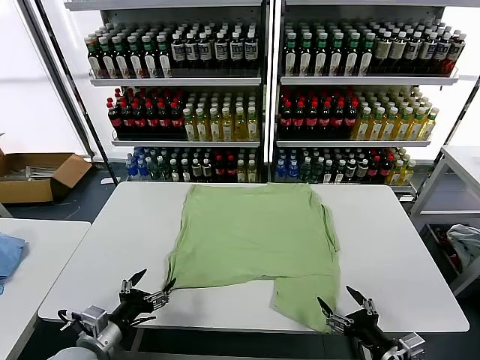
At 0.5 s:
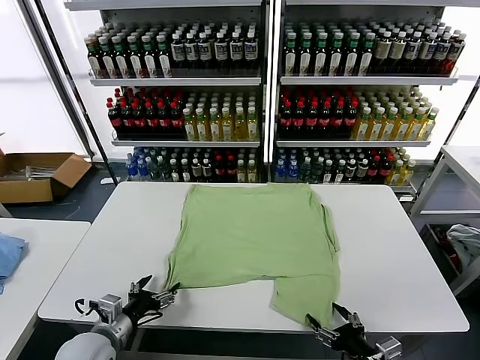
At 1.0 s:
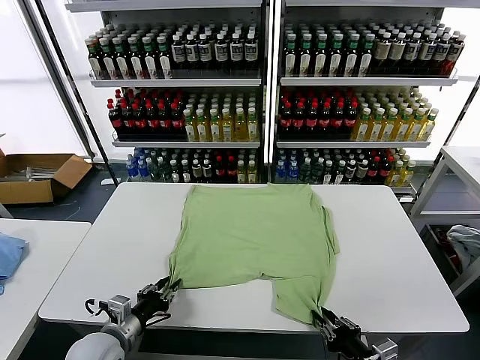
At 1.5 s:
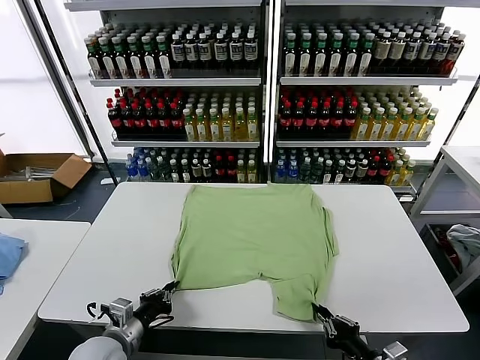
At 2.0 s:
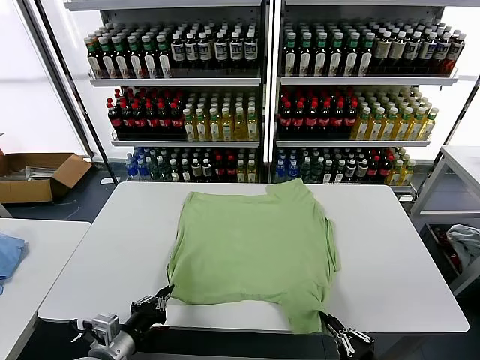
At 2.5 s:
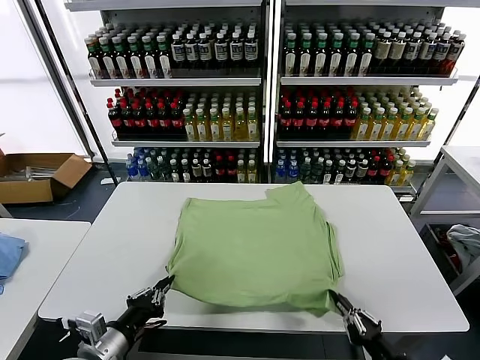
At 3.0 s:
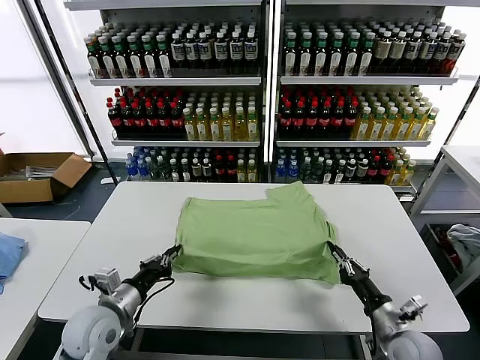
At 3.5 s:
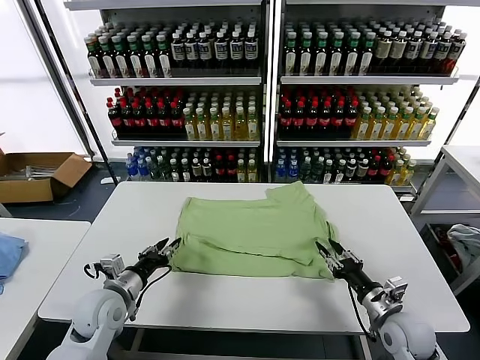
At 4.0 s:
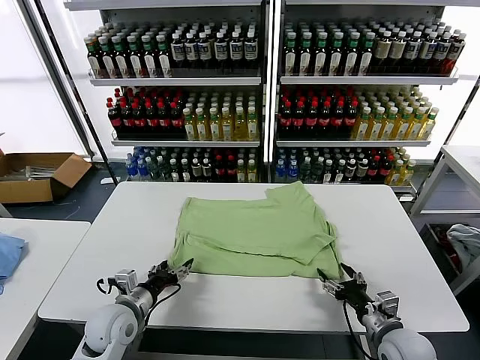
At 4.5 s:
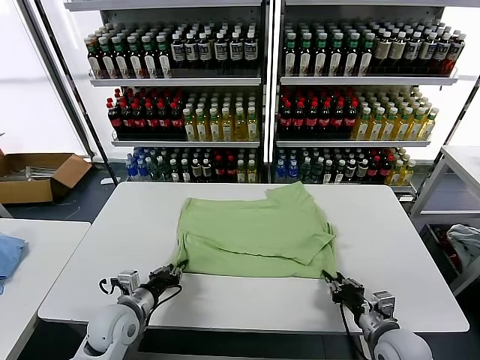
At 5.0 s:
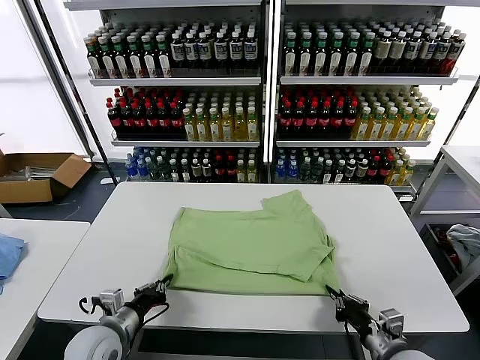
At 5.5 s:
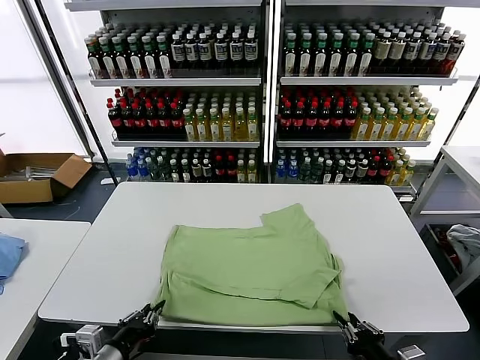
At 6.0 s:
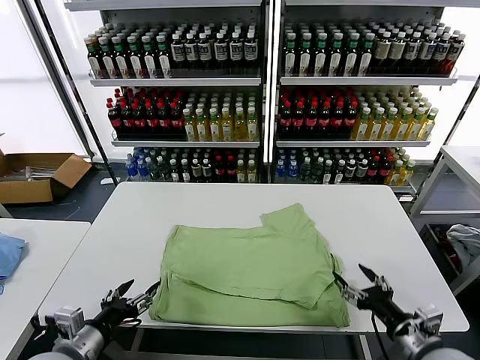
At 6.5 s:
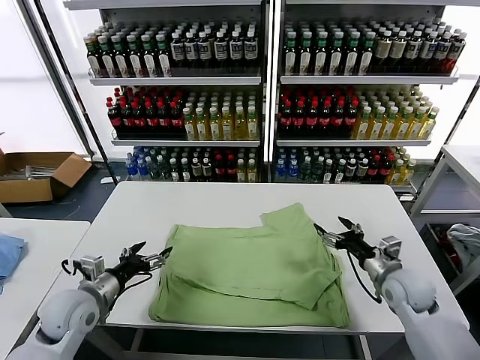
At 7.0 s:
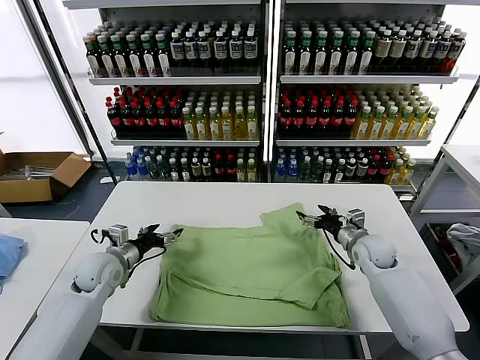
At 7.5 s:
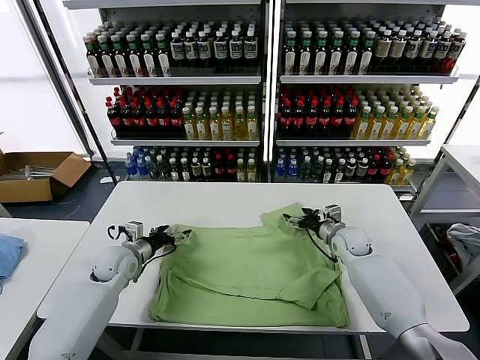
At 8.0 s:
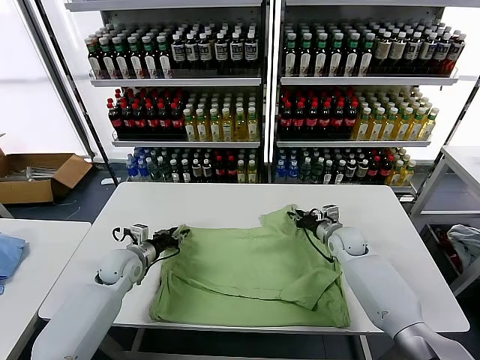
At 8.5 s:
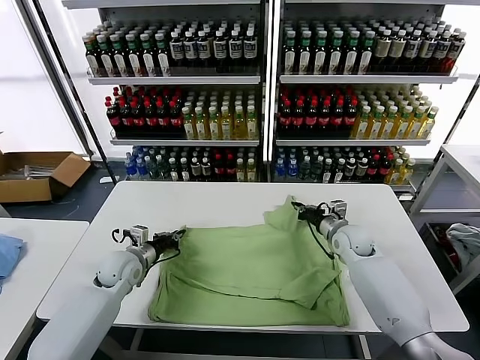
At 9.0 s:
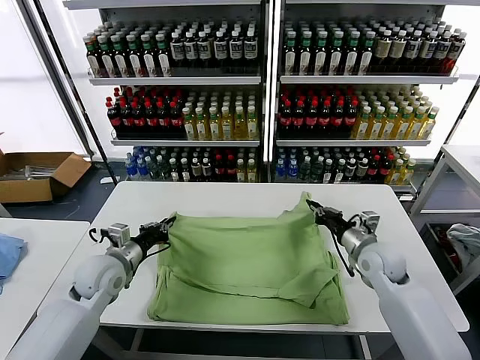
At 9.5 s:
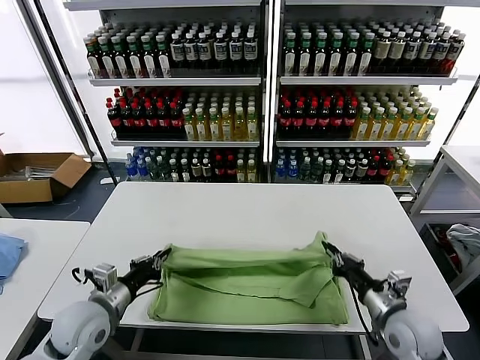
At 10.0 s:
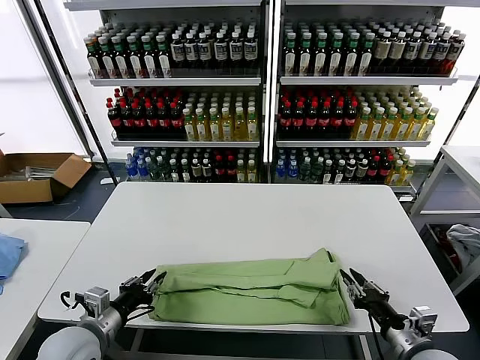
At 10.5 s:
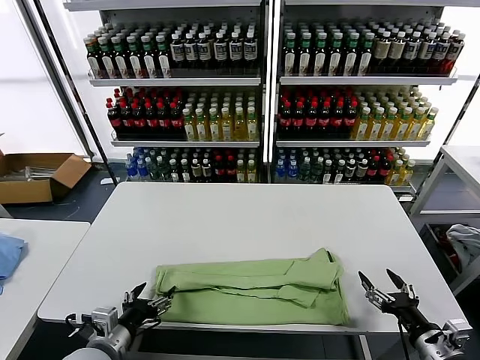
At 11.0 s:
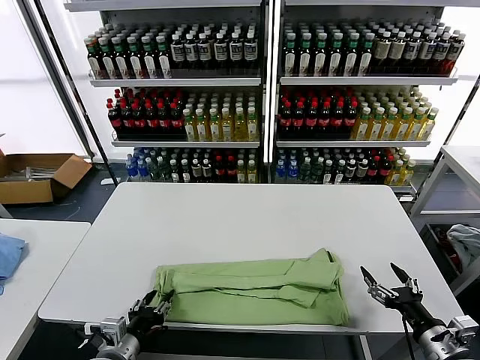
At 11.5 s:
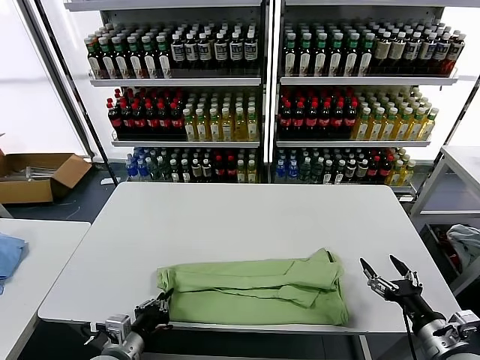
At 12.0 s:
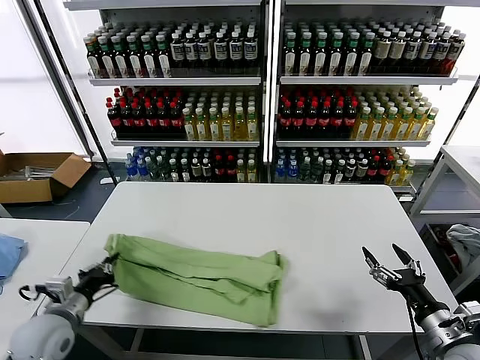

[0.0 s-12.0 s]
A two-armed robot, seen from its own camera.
Task of the whole recording: fold and organize the clothes.
Step, 0.0 to 1.0 s: use both grippers simultaneously to clamp the lower edge of the clothing fabric.
Step, 1.5 to 3.5 s: use both grippers to drag the lower edge of the fabric forward and fold it over the upper edge.
Step, 4.0 to 5.5 s: Drag the clothes downward with both gripper.
Step, 6.0 to 8.0 s: use both grippers simultaneously to clamp the upper edge of the clothing fabric.
Step, 8.5 to 9.5 s: use both grippers to drag the upper edge of the fabric backward and fold it over the lower edge.
Step, 10.5 to 11.0 s: use the left gripper to clamp the left edge of the fabric.
2.0 to 4.0 s: The grippers both shift forward by some 15 cm. The left gripper opens its fingers. The right gripper opens its fingers.
4.0 to 6.0 s: The left gripper goes about 15 cm backward and upward, and closes and opens again. The right gripper shifts some 5 cm upward, moves about 10 cm backward and comes back, and closes, then opens again.
6.0 to 8.0 s: The two grippers go roughly 25 cm forward. The left gripper closes, while the right gripper closes up.
8.0 to 10.0 s: The left gripper heads backward, covering approximately 20 cm. The right gripper moves backward, some 35 cm.
10.0 to 12.0 s: The left gripper goes about 5 cm to the left, and opens, then closes again. Meanwhile the right gripper opens its fingers.

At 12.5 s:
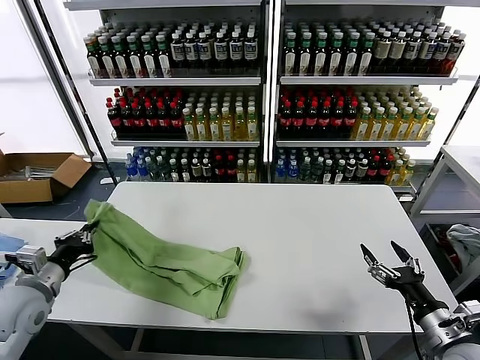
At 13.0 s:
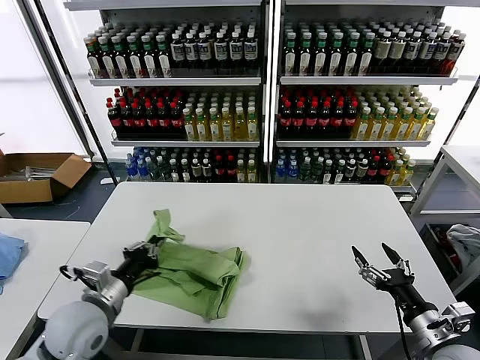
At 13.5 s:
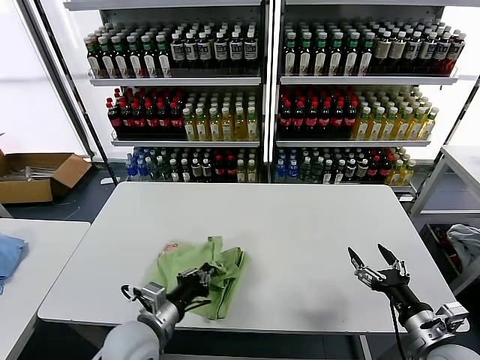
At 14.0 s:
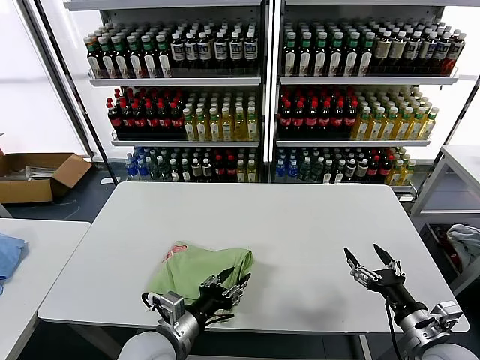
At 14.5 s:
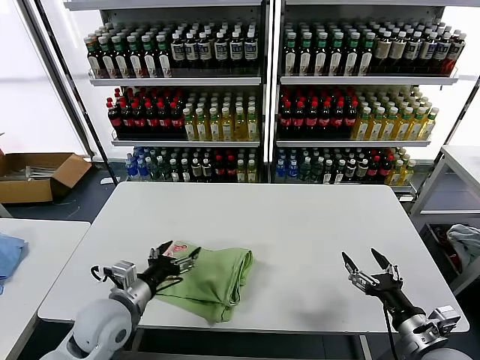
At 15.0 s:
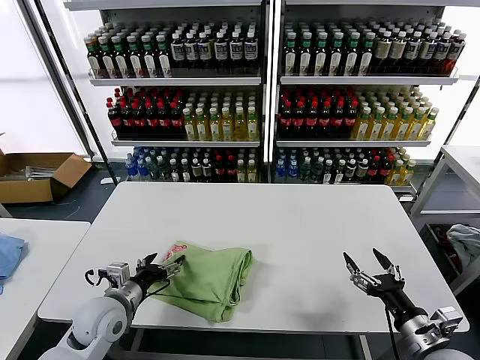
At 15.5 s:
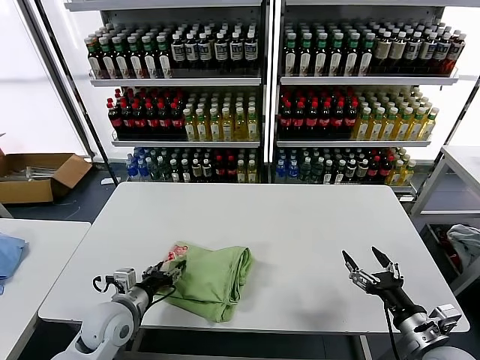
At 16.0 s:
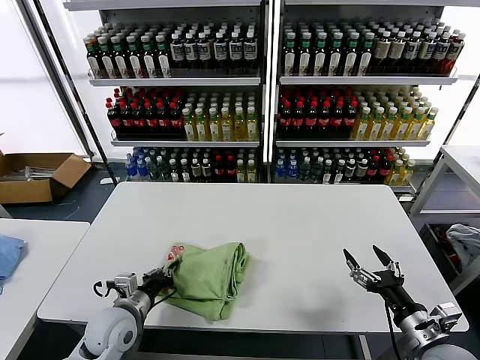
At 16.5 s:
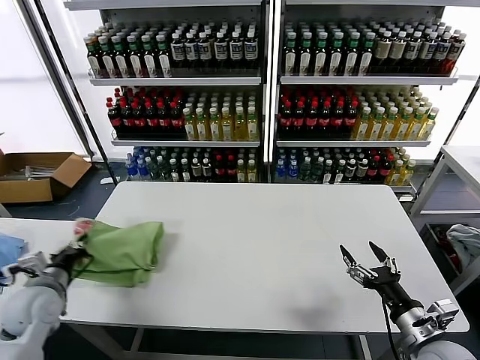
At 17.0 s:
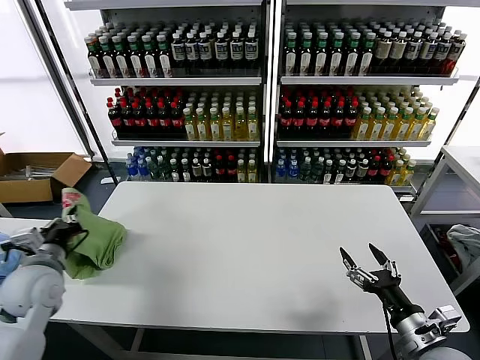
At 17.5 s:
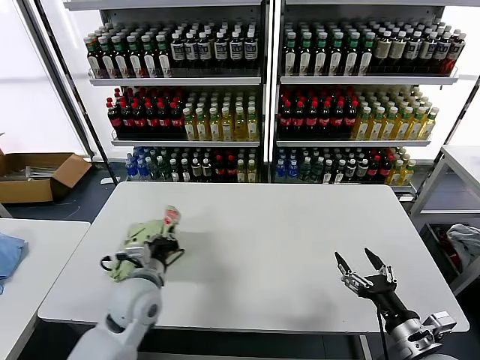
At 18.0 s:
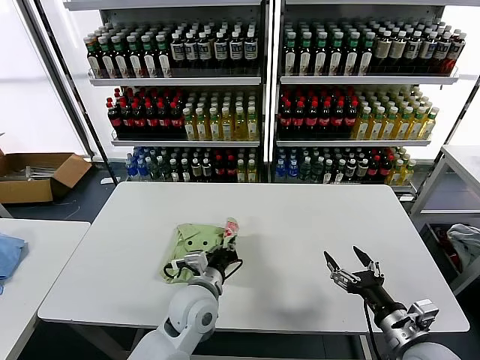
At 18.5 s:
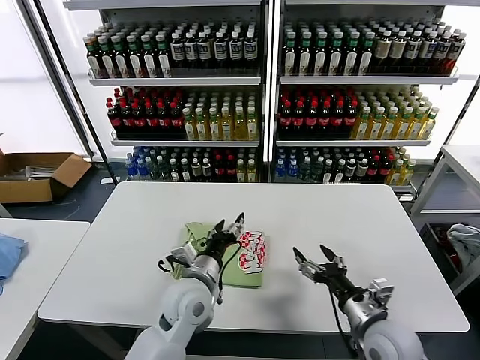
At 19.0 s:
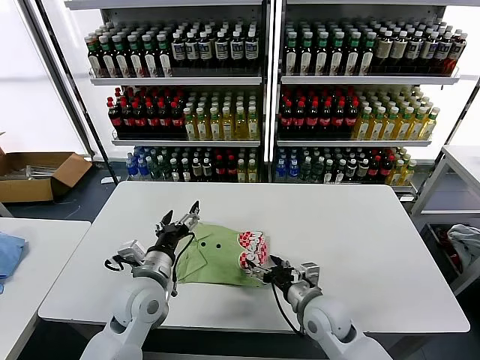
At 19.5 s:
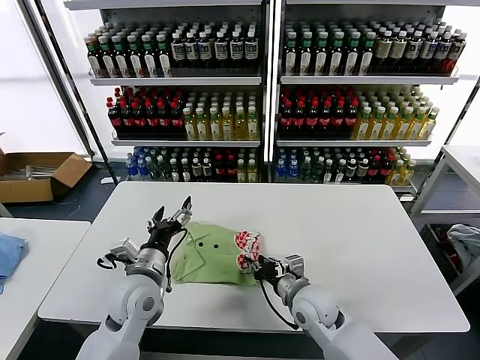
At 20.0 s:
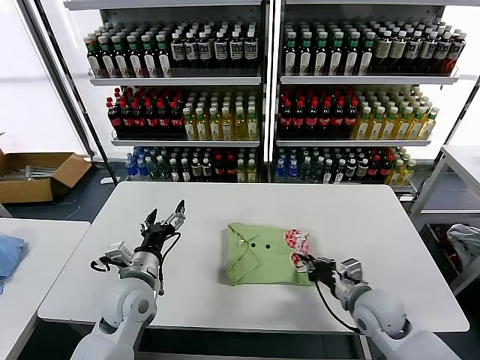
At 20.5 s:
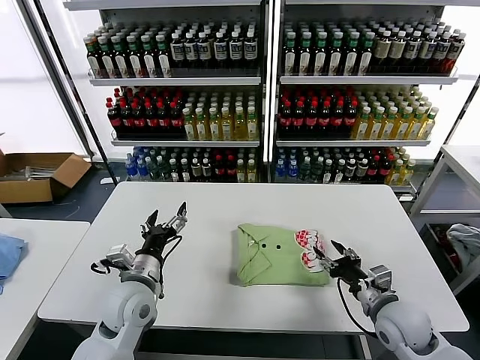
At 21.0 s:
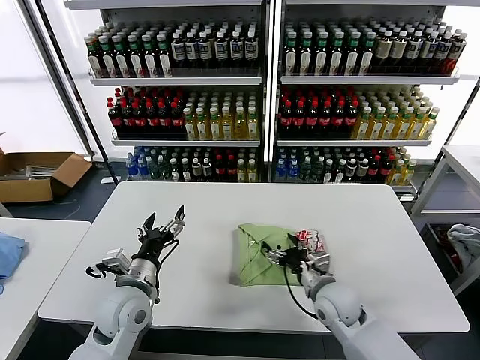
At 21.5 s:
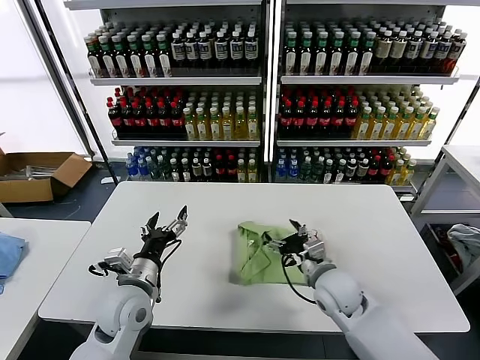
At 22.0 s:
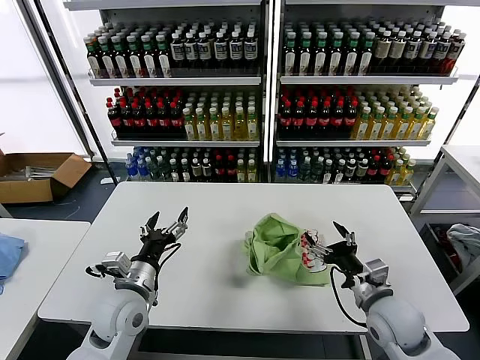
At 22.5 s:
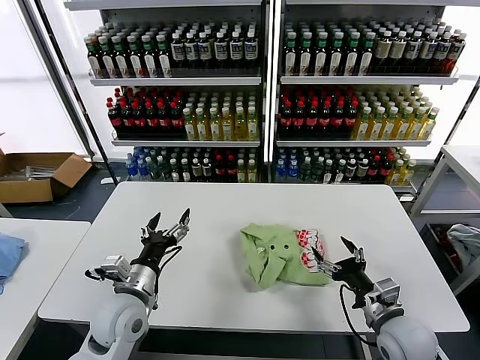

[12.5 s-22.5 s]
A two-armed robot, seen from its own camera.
Task of the whole recording: fold and organize the clothes.
Step, 12.5 to 14.0 s: use the left gripper to drag the left edge of the fabric to the left and folds it over the right edge.
Step, 14.5 to 18.0 s: Flip the folded clothes over with left gripper.
Step, 18.5 to 22.0 s: Drag the clothes to the center of the table.
12.5 to 14.5 s: The left gripper shifts about 15 cm to the right, and opens.
14.5 to 16.5 s: The left gripper moves to the left, approximately 15 cm, and closes its fingers.
16.5 to 18.5 s: The right gripper moves to the left, some 10 cm. The left gripper moves to the right, roughly 30 cm, and opens.
18.5 to 20.5 s: The right gripper moves roughly 10 cm to the left and comes back, and closes, then reopens. Meanwhile the left gripper moves to the left, some 10 cm.
20.5 to 22.5 s: The right gripper goes to the left and returns, about 10 cm each way.

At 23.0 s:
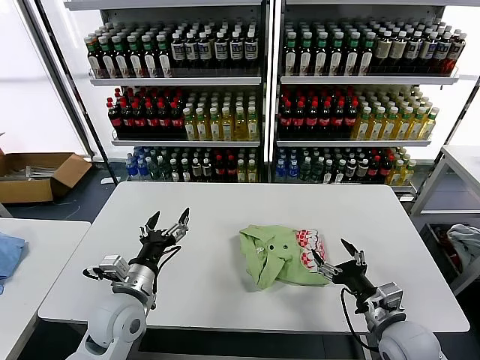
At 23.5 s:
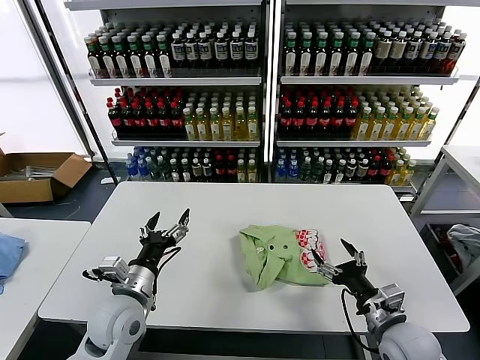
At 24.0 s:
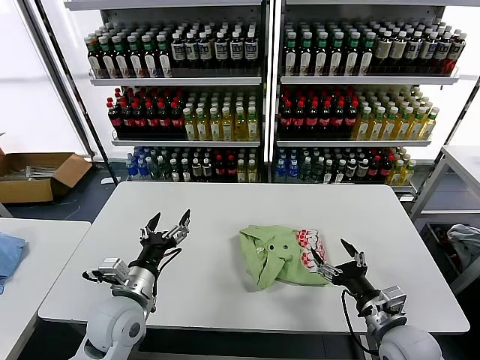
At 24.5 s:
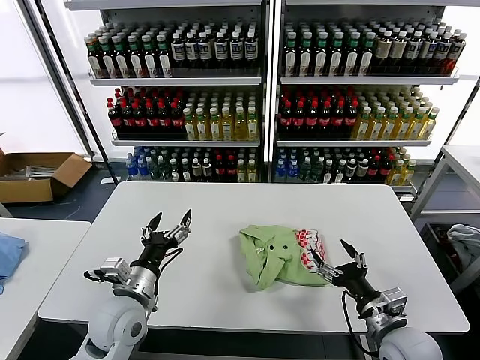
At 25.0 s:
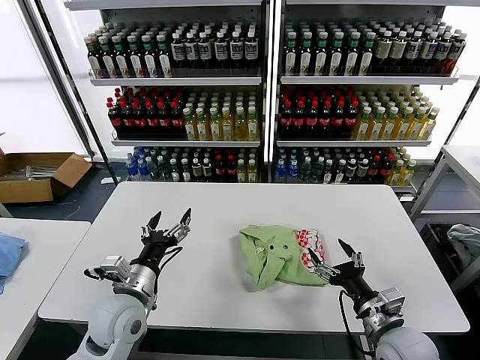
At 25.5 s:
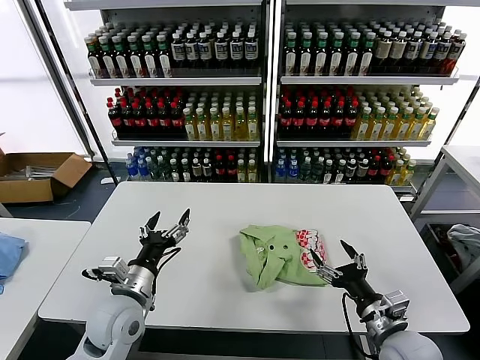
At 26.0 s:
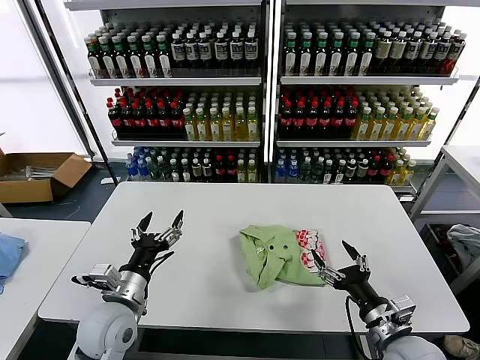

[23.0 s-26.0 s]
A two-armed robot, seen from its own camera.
Task of the whole recording: fold and organize the clothes.
23.0 to 24.5 s: Both grippers stay about where they are.
24.5 to 26.0 s: There are only small adjustments of the grippers.
